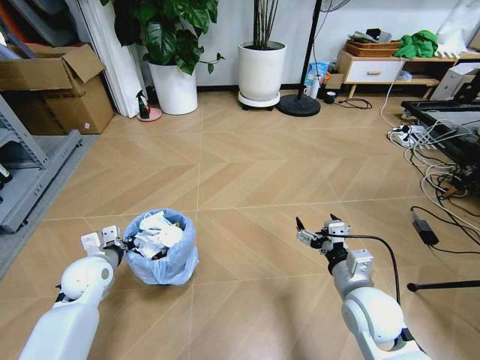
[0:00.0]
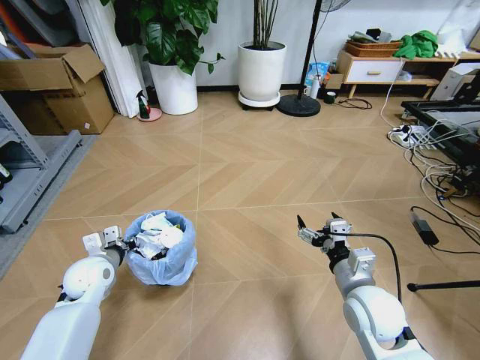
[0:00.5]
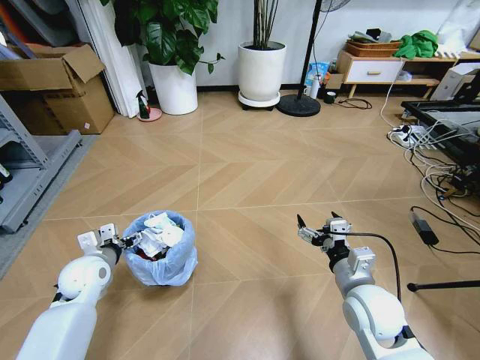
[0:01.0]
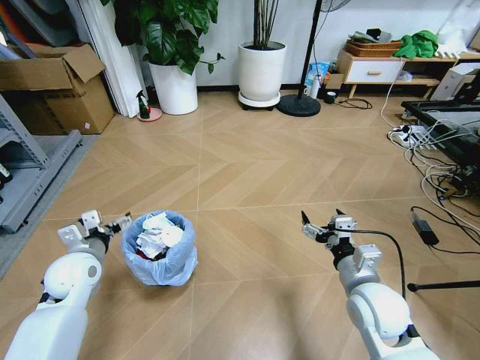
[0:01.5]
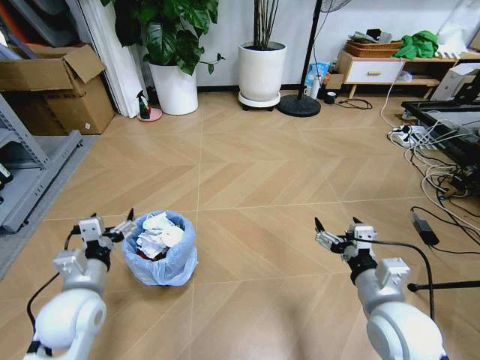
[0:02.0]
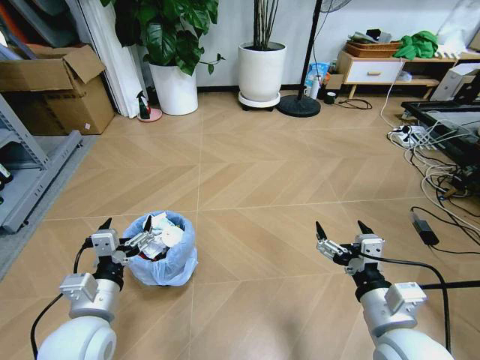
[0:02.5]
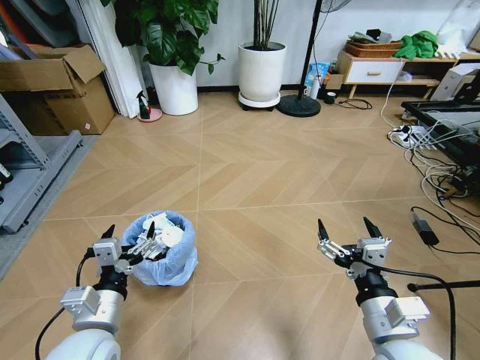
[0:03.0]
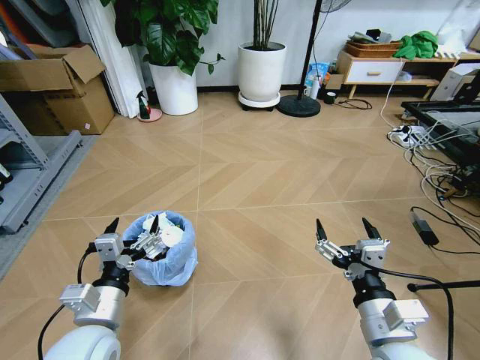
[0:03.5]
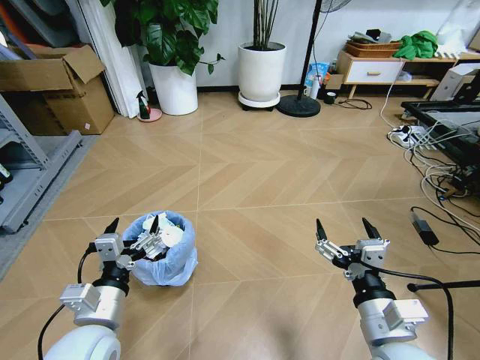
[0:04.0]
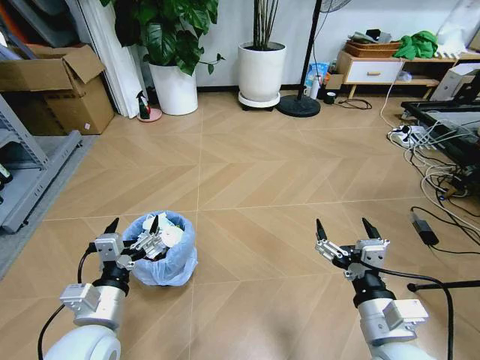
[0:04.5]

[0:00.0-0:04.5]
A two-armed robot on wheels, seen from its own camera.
Task of the whole recording: Pick up the trash bin and place the garbage on the floor into it.
0:00.0 to 0:02.0: The left gripper shifts roughly 10 cm backward and upward, and opens up, while the right gripper moves approximately 5 cm.
0:02.0 to 0:04.5: The right gripper moves backward, roughly 5 cm. Meanwhile the left gripper travels backward and to the right by approximately 10 cm.
